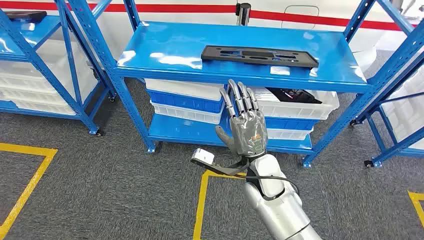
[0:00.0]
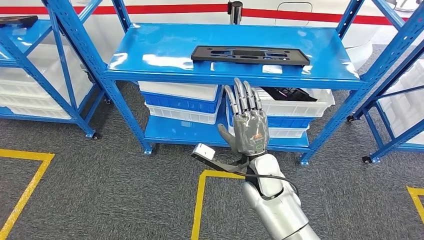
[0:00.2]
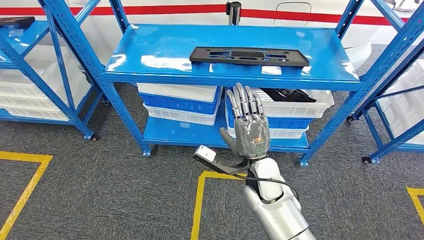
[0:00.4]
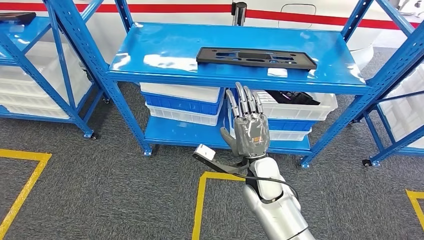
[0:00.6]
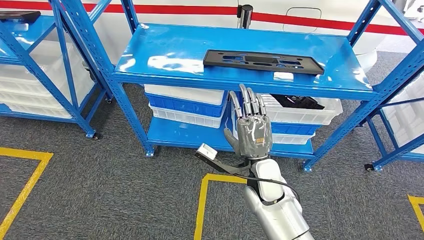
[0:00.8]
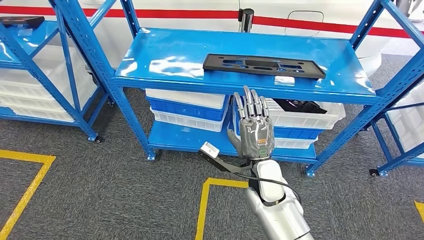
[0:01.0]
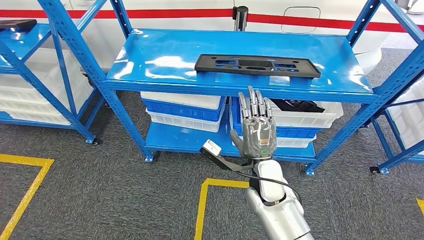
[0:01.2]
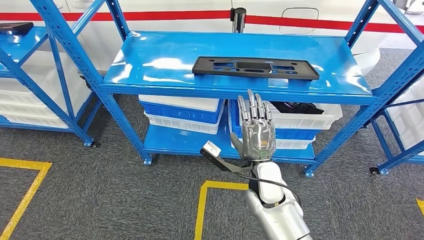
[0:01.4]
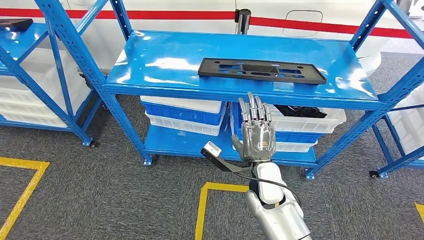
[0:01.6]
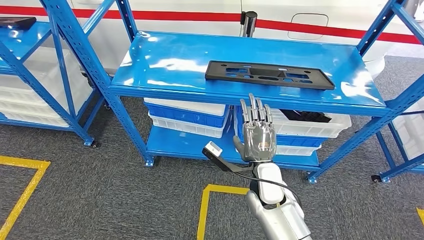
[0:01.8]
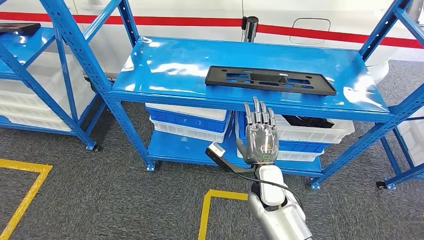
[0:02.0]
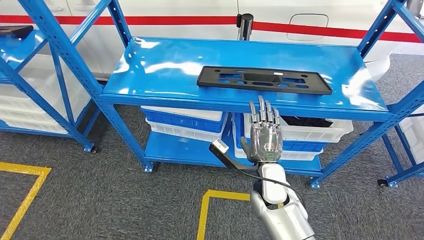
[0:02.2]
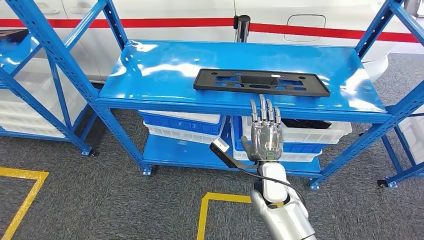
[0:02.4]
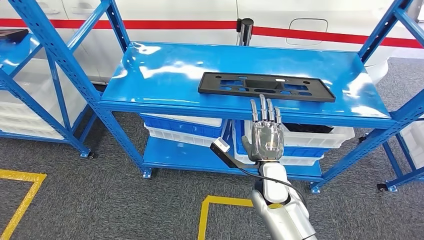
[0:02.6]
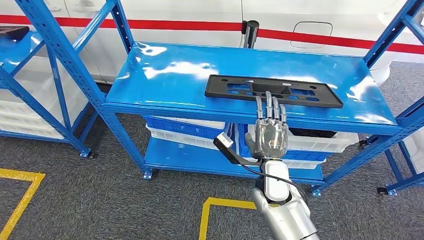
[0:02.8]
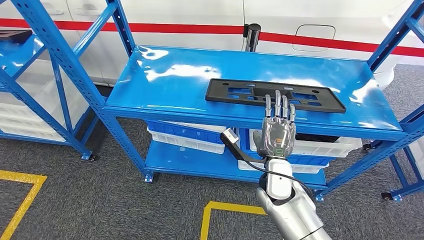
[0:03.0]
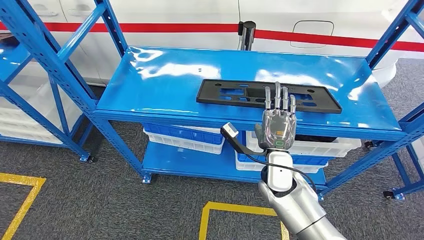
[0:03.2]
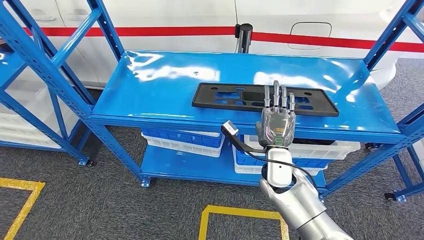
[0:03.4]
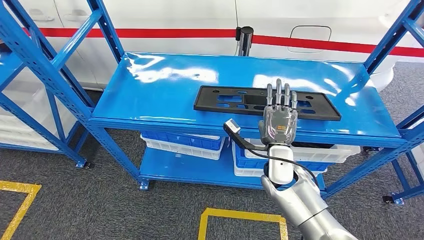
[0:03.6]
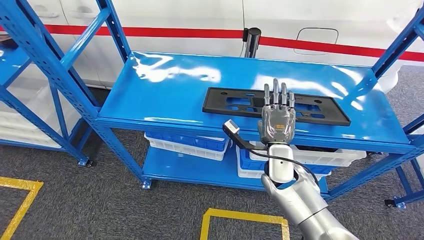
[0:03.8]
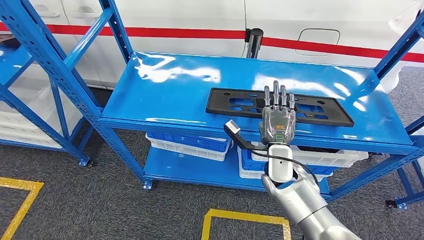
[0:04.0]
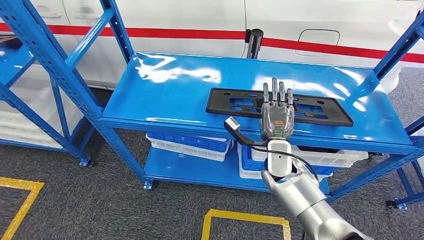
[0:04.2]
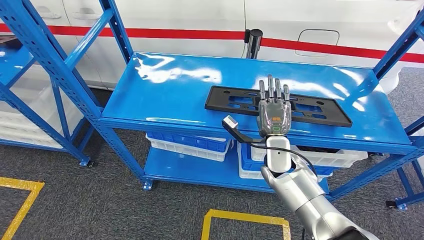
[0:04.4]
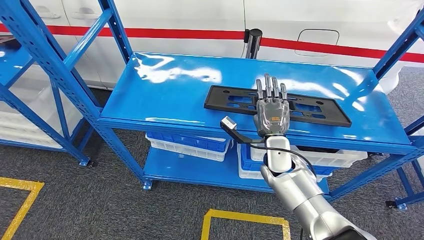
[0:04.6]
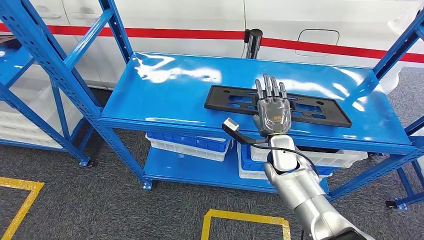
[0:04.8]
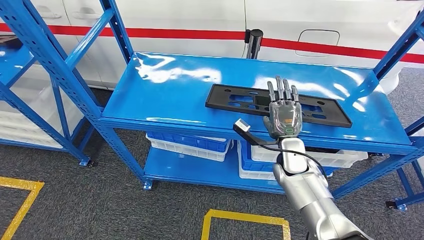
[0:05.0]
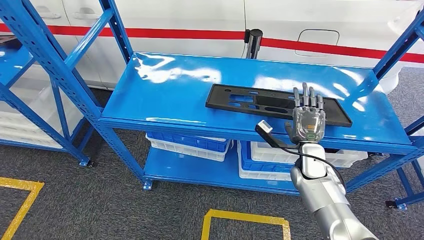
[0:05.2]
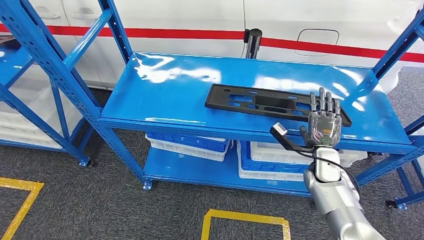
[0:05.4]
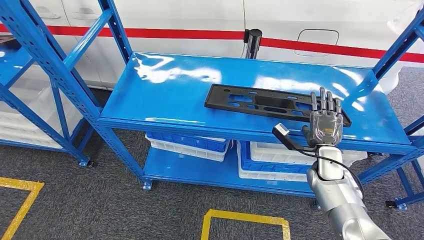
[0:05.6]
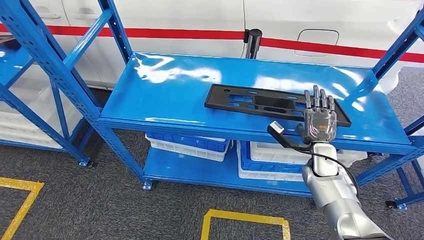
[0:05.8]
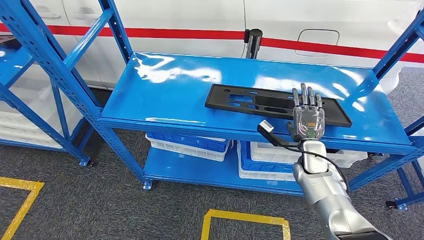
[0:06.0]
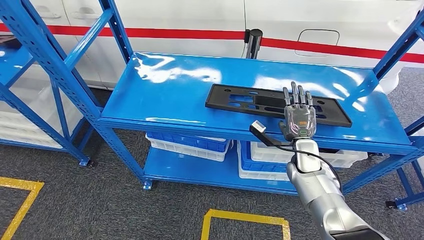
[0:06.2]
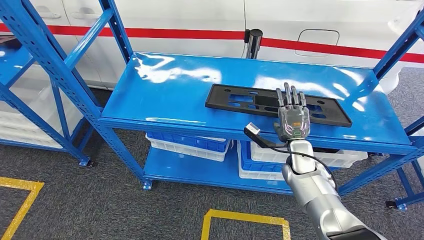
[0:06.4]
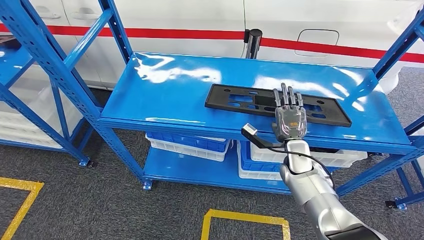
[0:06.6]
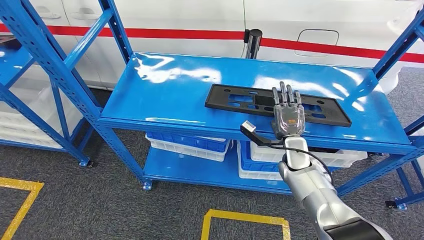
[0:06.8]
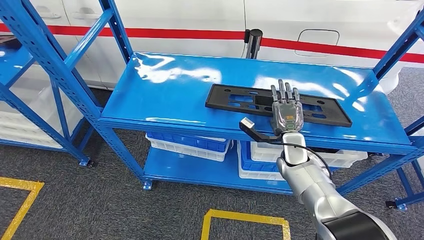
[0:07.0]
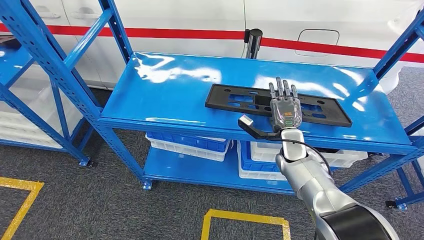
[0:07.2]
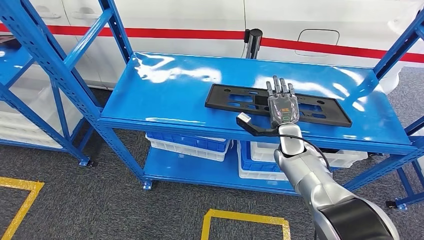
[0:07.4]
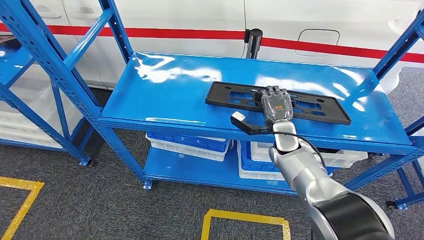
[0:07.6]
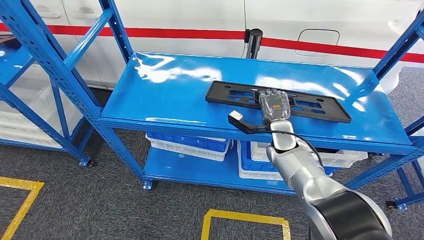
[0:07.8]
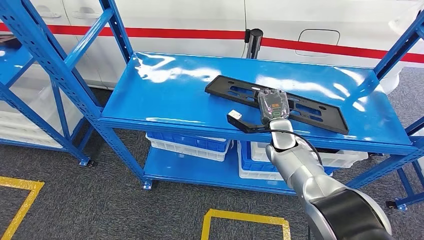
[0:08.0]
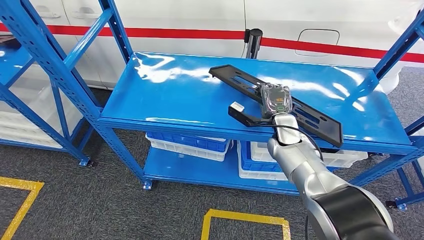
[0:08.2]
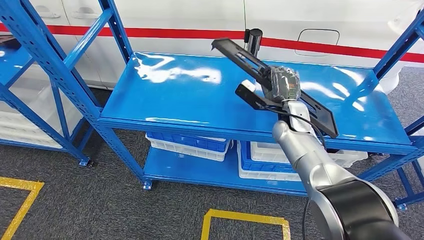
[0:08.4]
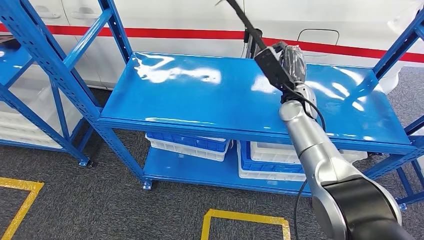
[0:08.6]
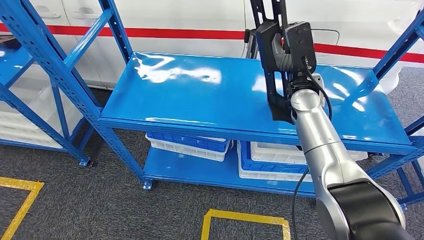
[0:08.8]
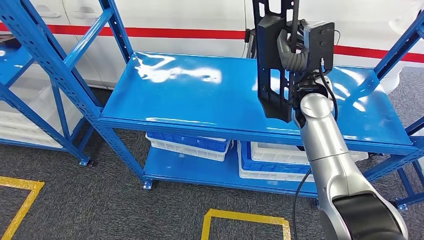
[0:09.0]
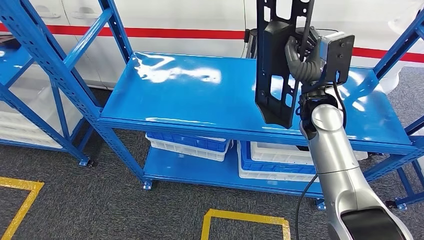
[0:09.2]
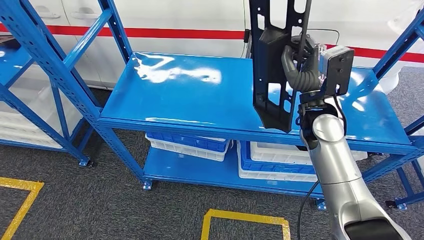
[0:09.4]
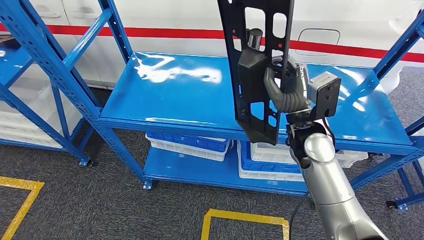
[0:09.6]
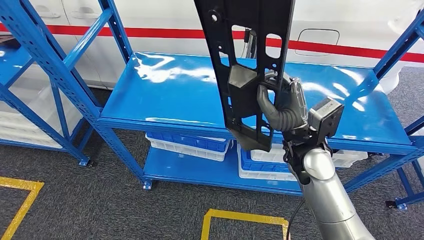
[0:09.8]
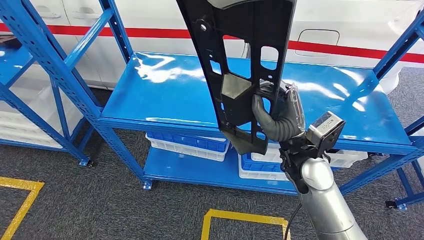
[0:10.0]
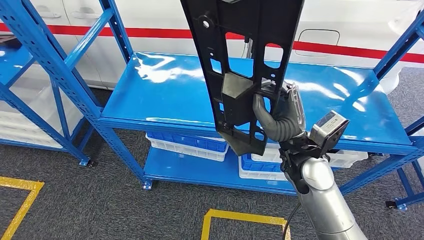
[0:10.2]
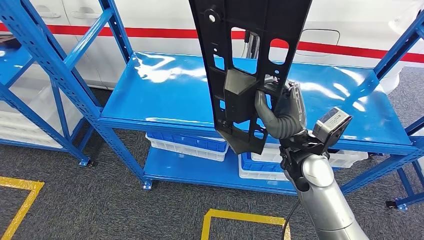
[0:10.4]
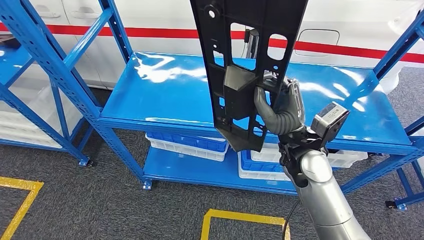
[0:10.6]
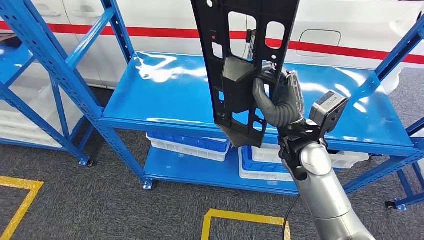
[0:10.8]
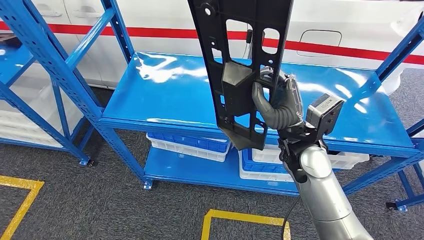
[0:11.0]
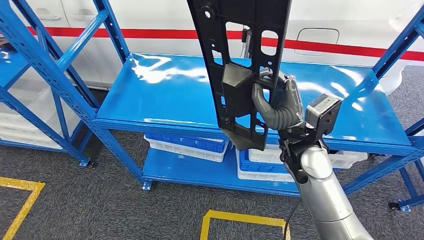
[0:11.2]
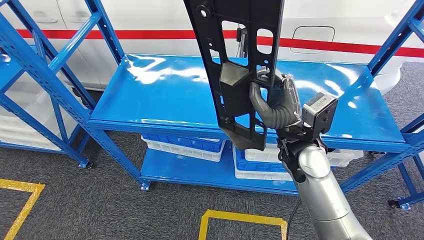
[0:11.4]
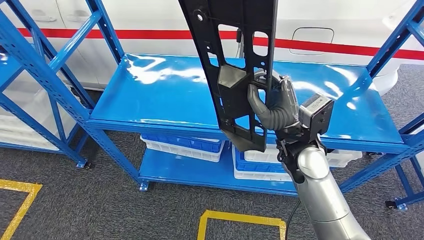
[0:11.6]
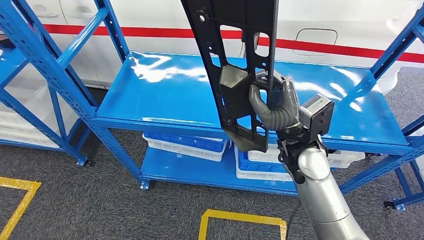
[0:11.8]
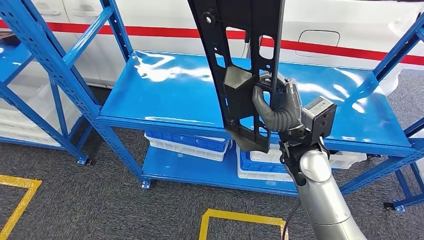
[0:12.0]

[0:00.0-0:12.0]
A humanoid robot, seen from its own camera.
0:04.4 to 0:06.0: Both hands travel together to the right, about 10 cm.
0:06.0 to 0:07.6: The right hand shifts roughly 10 cm to the left.
0:07.6 to 0:09.0: The right hand heads upward, covering about 15 cm.
0:10.4 to 0:12.0: There are only small adjustments of the hands.

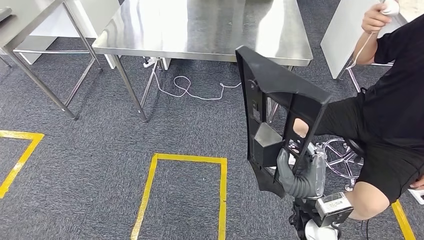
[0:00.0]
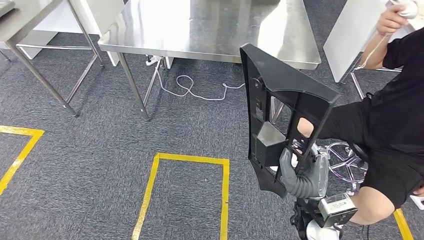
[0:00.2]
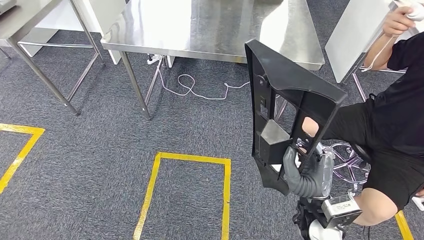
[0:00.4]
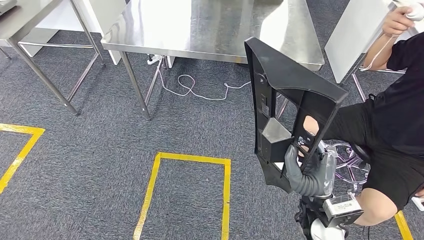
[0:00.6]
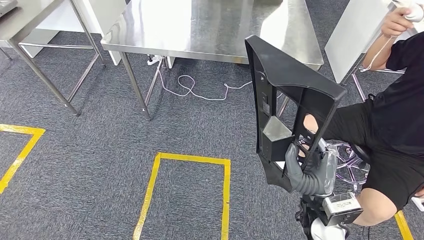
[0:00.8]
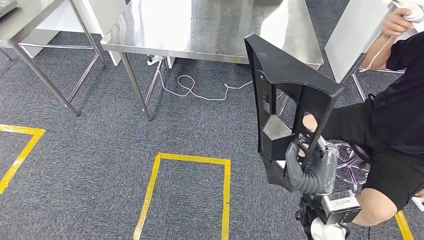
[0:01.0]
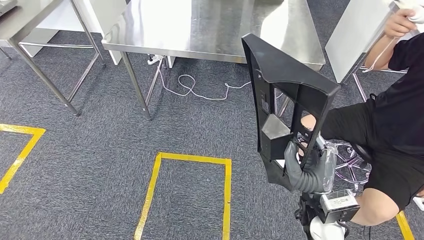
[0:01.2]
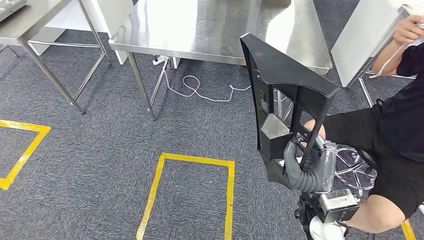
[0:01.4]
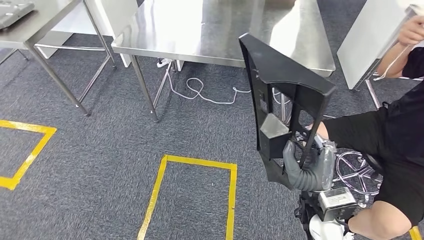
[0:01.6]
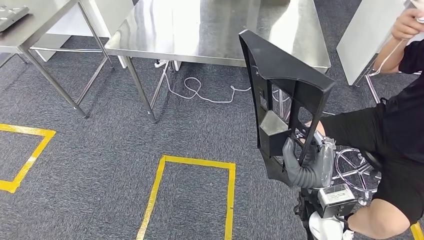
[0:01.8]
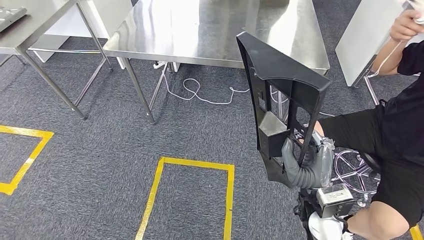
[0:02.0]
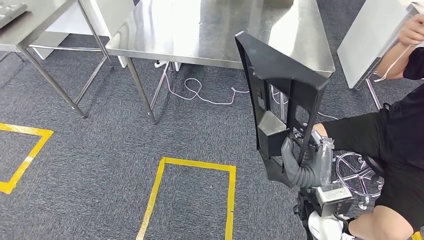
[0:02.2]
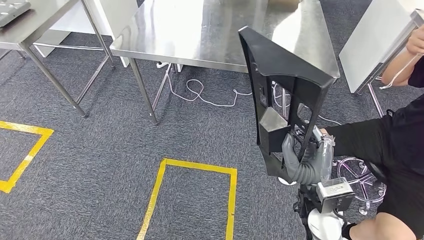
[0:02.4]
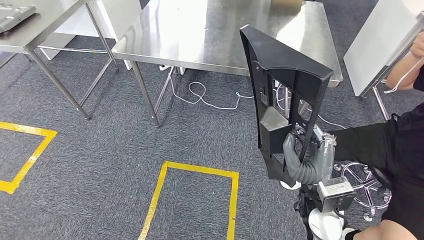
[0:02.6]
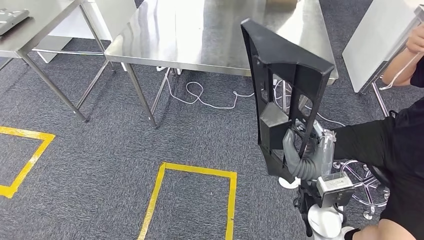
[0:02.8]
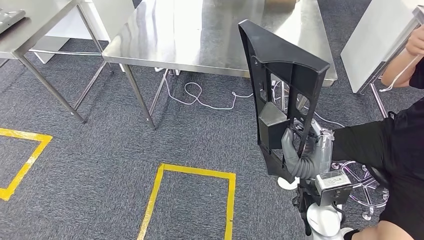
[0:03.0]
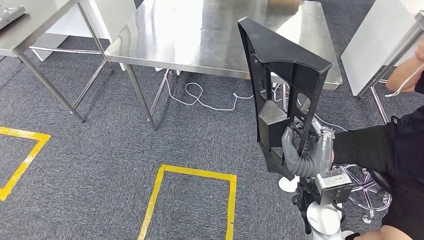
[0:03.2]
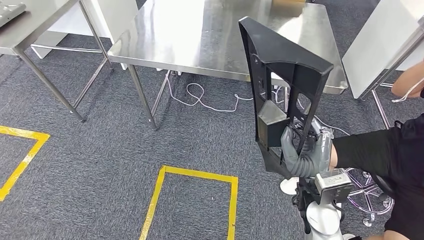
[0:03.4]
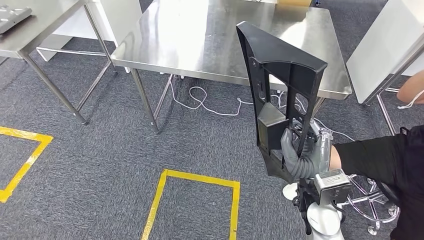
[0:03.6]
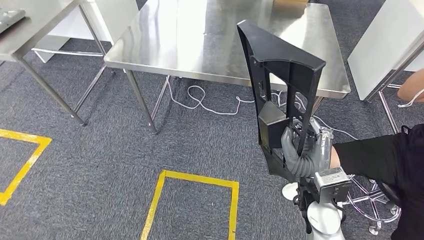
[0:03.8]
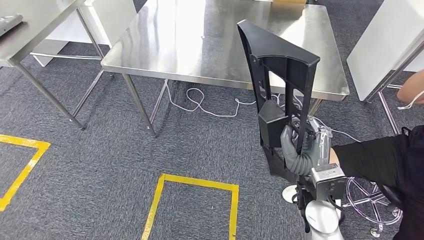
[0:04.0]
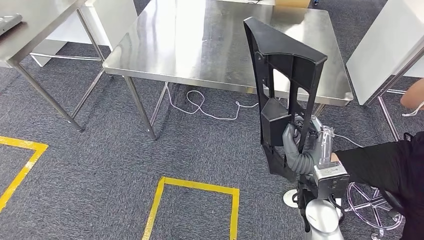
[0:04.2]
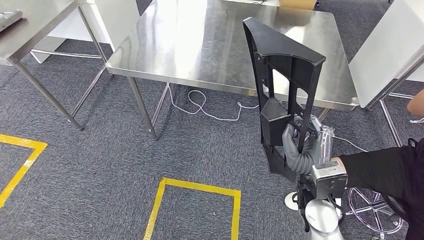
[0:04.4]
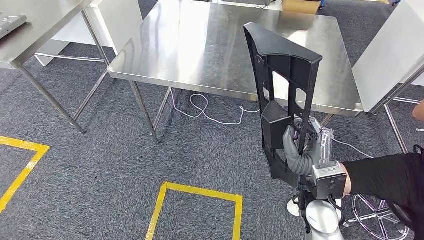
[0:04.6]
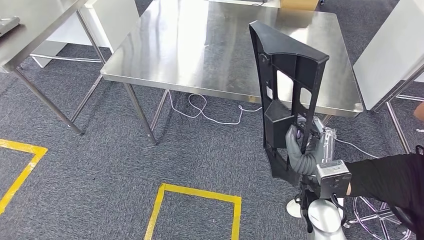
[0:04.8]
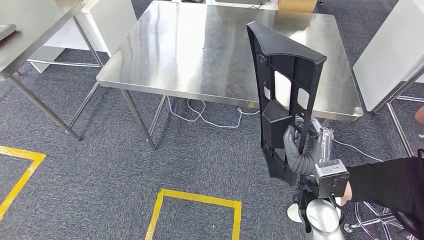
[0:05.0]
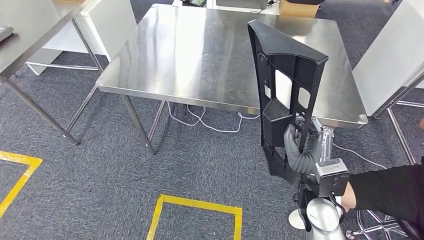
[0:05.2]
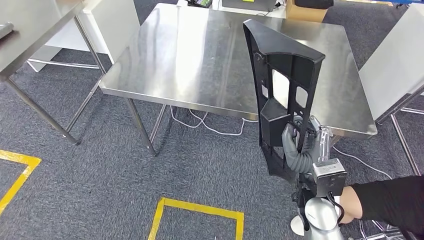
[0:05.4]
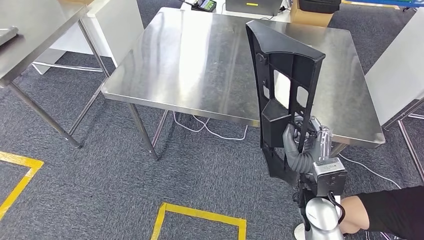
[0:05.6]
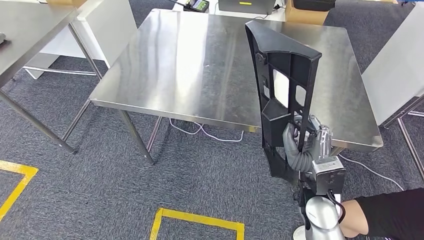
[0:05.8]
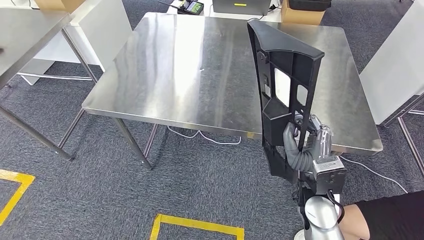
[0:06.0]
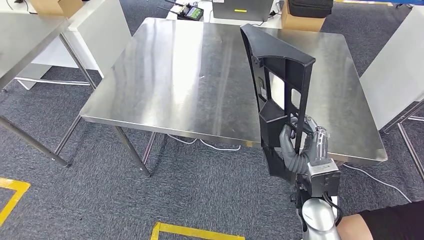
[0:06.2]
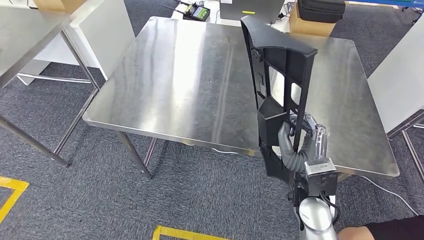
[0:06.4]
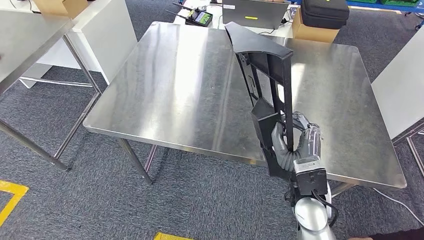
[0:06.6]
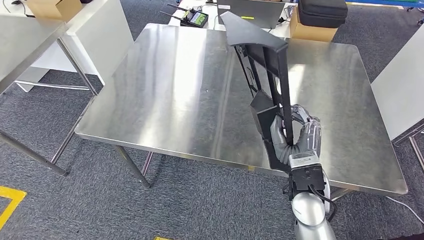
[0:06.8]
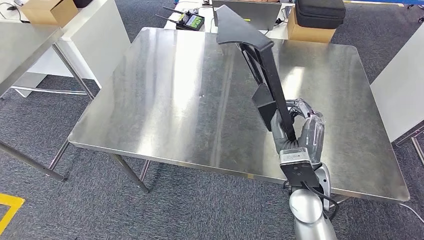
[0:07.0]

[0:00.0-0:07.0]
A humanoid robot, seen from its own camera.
Step, 0:00.0 to 0:04.6: Move the large material to the front of the workbench.
